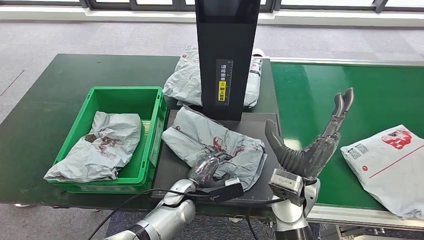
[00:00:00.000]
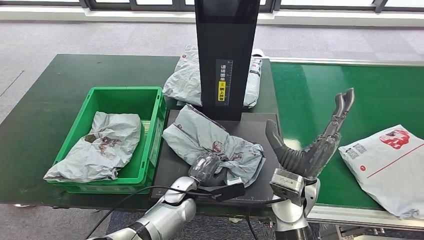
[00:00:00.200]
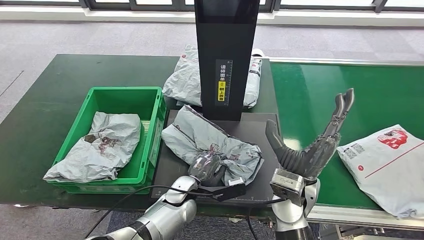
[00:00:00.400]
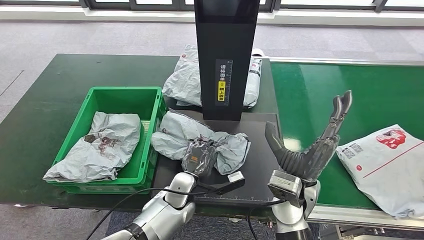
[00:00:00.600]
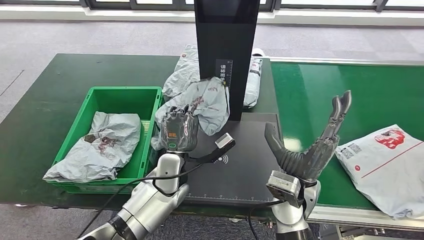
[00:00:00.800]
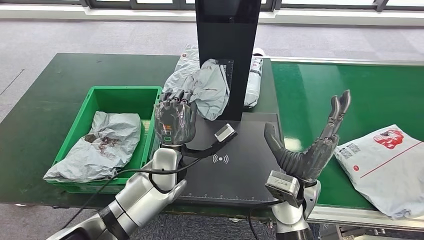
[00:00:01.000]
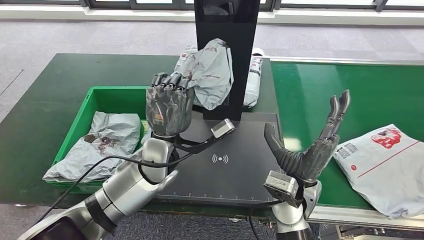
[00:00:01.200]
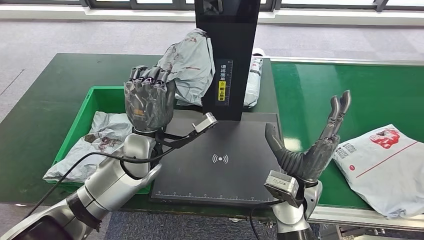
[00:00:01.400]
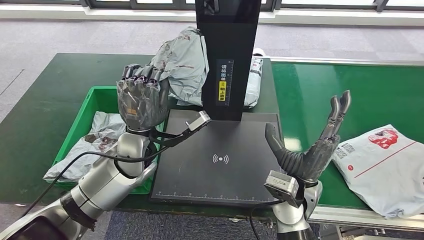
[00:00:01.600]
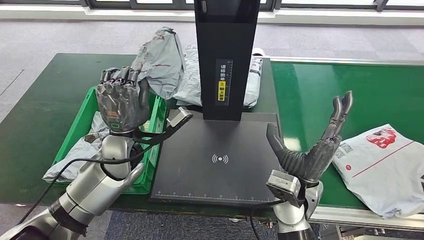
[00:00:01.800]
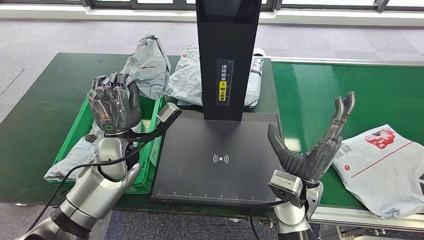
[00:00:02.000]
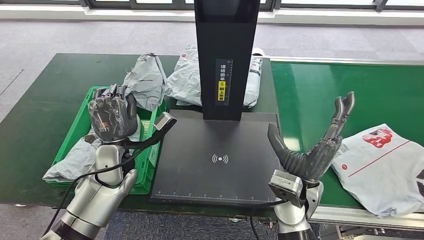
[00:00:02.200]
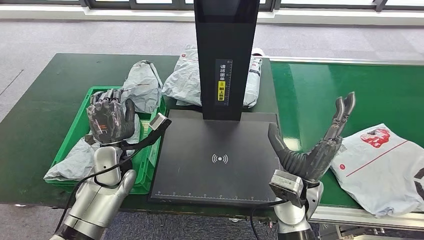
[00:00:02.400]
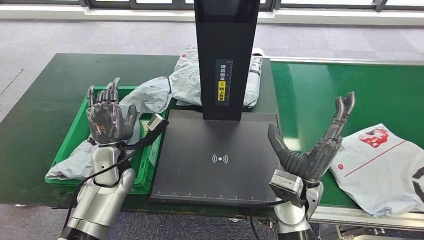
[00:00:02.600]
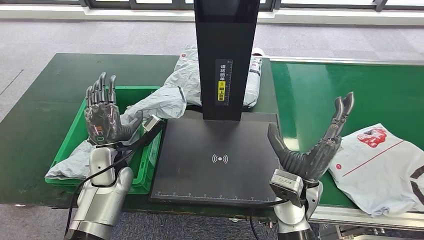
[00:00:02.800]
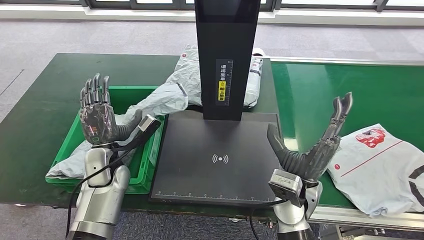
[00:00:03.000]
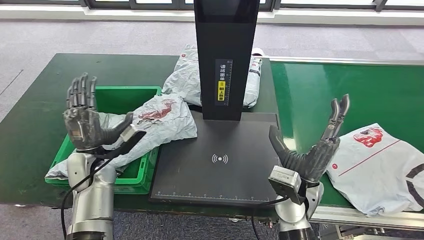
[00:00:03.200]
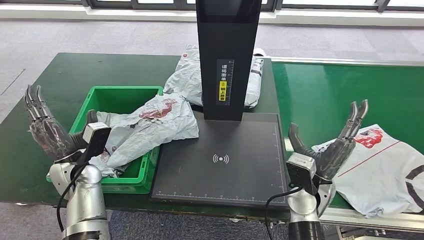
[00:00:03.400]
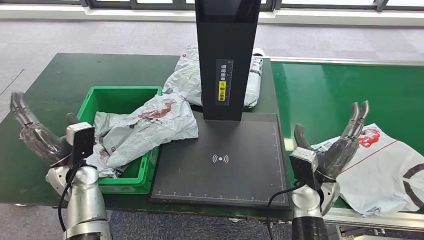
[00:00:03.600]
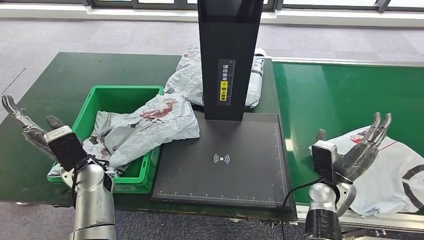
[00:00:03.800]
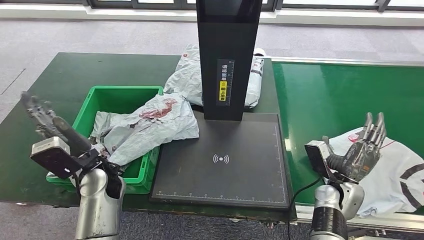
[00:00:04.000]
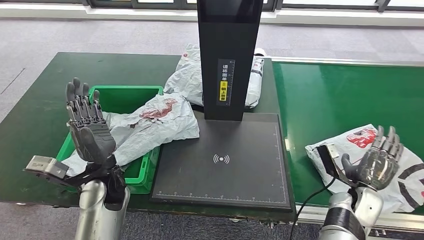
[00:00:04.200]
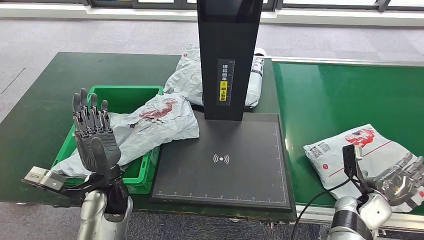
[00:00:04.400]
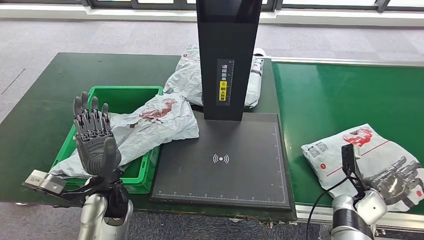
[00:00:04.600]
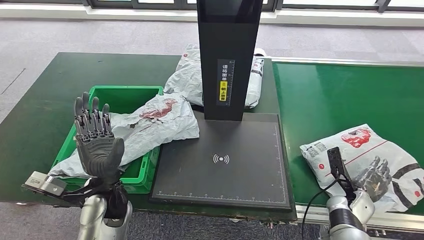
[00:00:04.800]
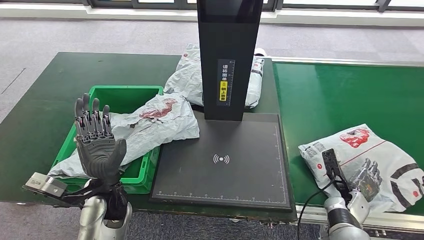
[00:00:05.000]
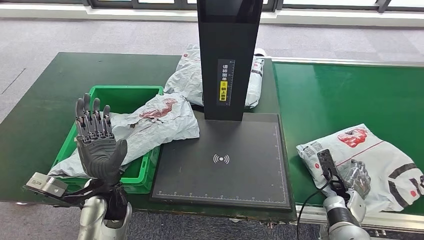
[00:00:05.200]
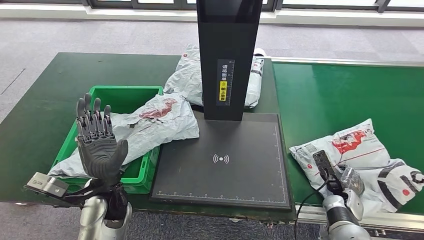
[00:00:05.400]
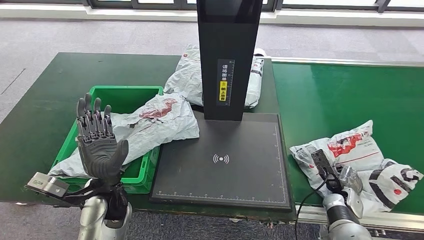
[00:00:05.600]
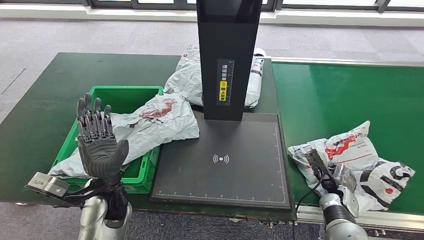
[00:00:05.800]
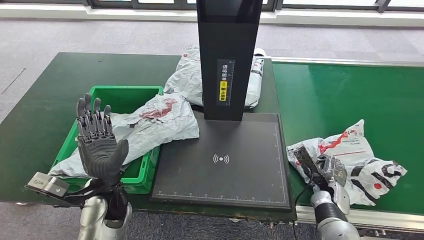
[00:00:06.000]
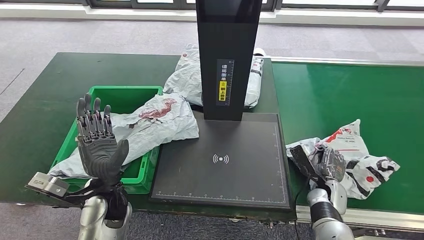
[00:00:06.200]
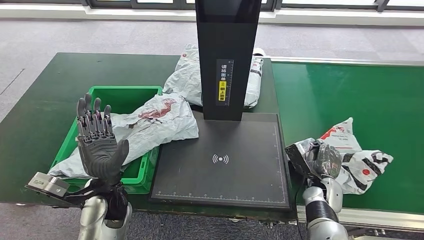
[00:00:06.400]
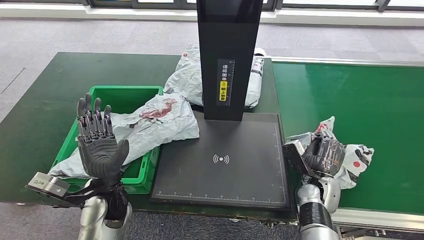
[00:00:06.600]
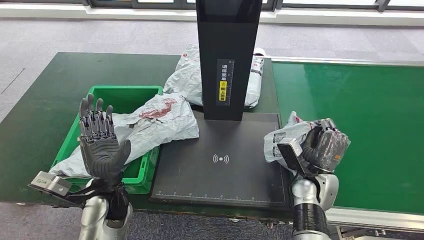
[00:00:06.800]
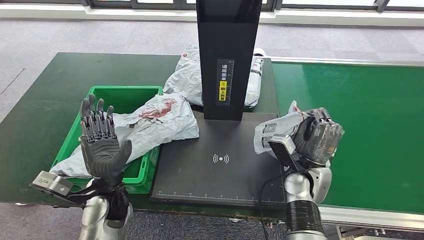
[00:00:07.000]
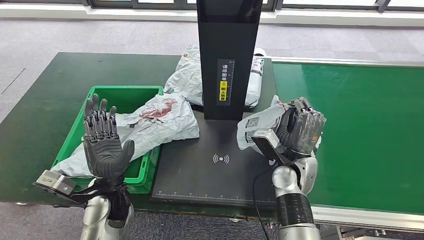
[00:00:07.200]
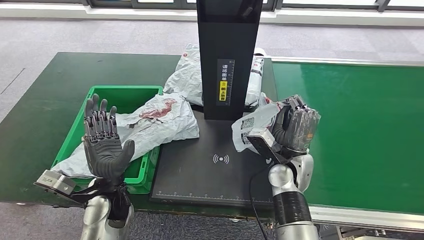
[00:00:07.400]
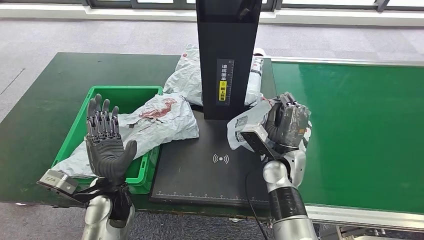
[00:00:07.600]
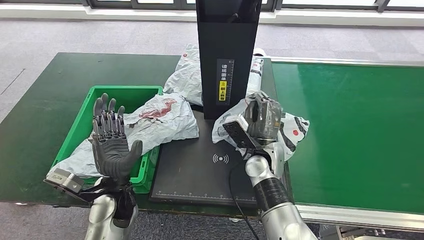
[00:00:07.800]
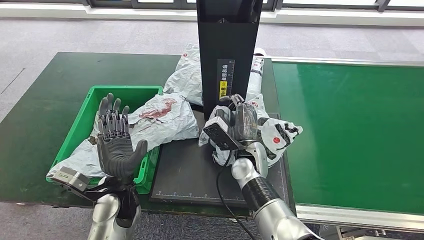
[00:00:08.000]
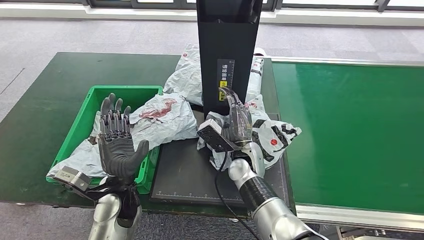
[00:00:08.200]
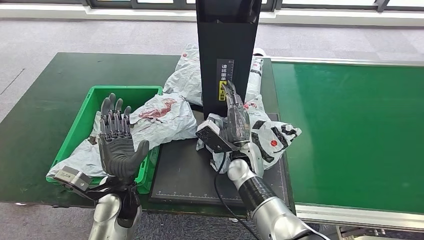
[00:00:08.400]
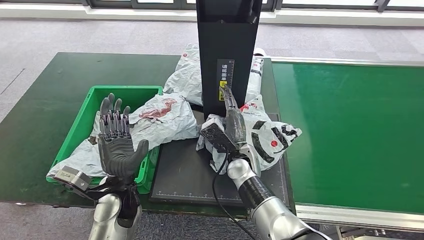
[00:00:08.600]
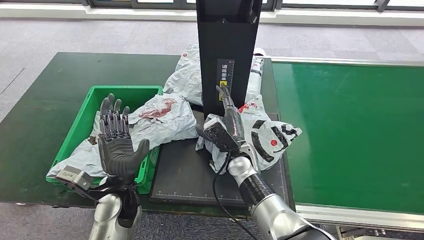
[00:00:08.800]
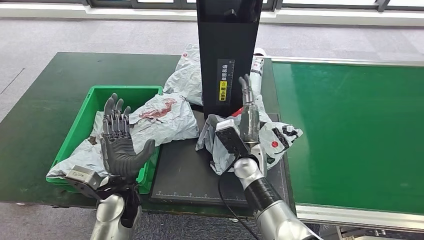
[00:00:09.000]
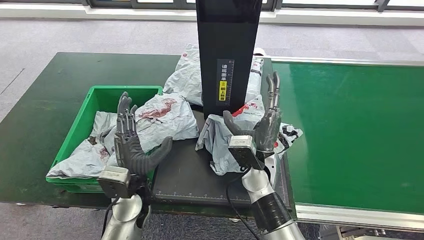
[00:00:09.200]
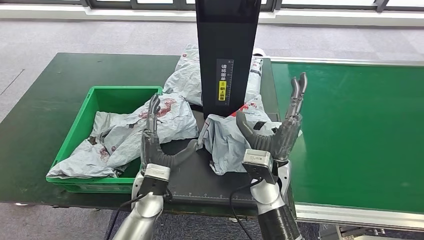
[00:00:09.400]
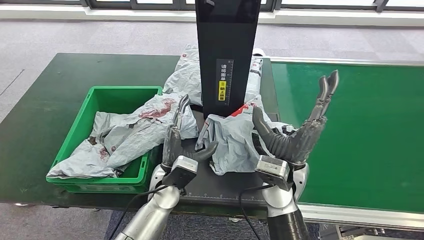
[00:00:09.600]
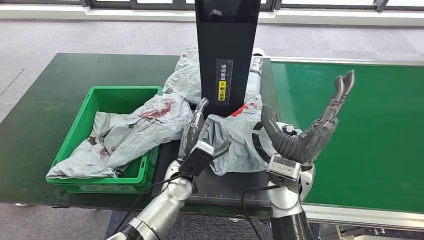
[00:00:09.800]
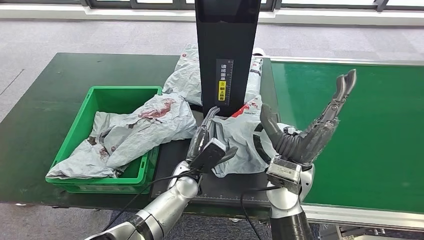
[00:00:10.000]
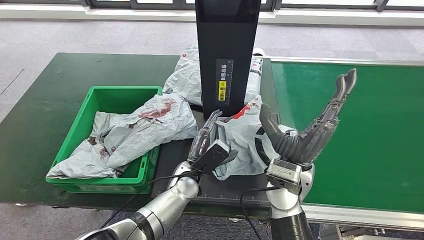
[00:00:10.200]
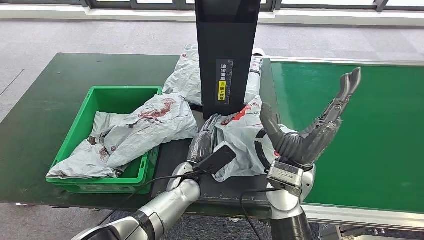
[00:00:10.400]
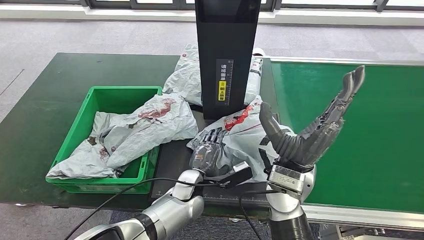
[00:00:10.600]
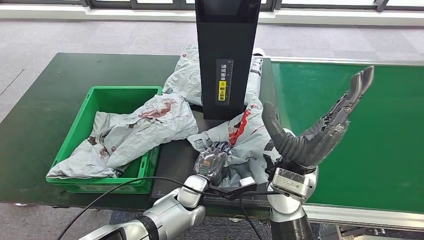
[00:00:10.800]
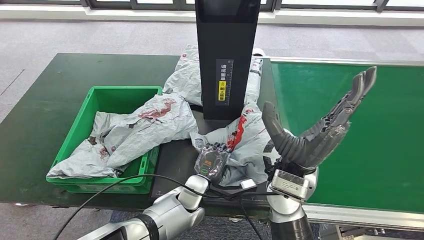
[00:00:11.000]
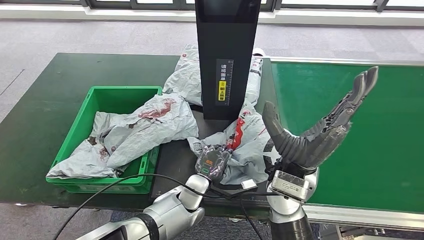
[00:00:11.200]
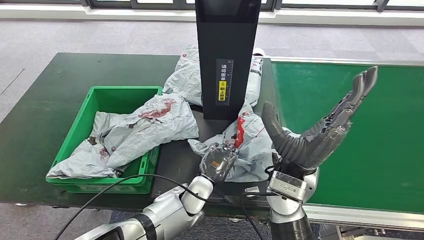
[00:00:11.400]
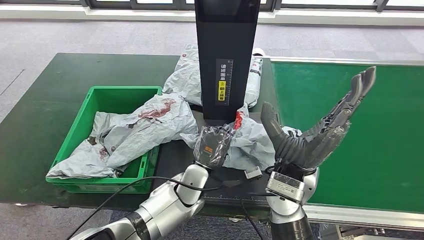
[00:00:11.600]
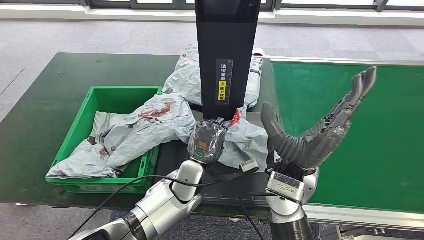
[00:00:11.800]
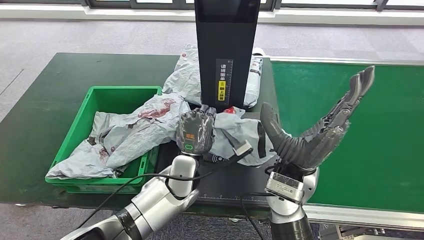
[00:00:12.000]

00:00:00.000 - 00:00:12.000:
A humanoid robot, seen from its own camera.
Step, 00:00:00.000 - 00:00:01.600: Pick up the parcel from the inbound machine.
Step, 00:00:02.000 - 00:00:03.800: Place the parcel into the delivery box.
Step, 00:00:04.200 - 00:00:07.000: Pick up the parcel from the conveyor belt.
Step, 00:00:07.400 - 00:00:08.800: Place the parcel onto the inbound machine.
00:00:04.400 - 00:00:06.000: The right hand moves to the left, some 5 cm.
00:00:07.600 - 00:00:09.000: The right hand shifts roughly 10 cm to the left.
00:00:10.400 - 00:00:12.000: The left hand is displaced upward by some 5 cm.

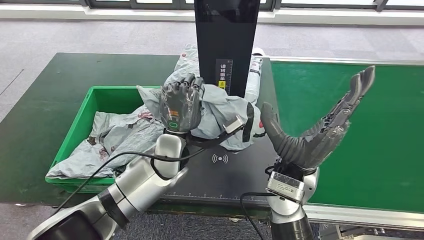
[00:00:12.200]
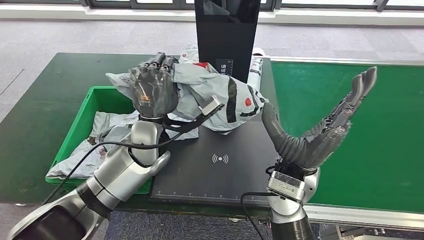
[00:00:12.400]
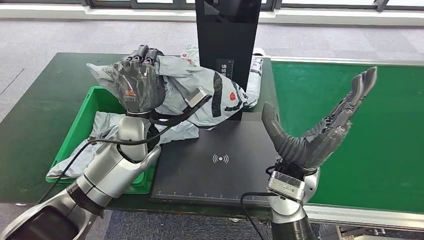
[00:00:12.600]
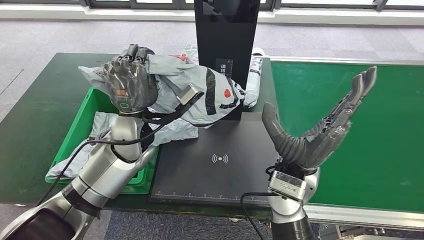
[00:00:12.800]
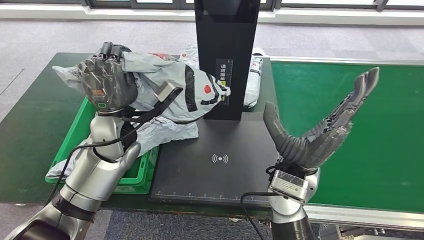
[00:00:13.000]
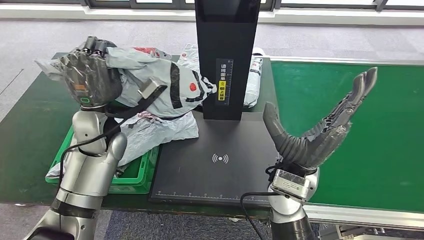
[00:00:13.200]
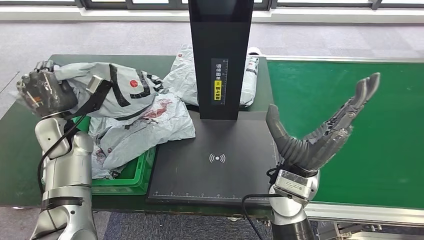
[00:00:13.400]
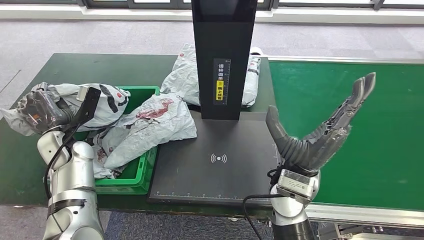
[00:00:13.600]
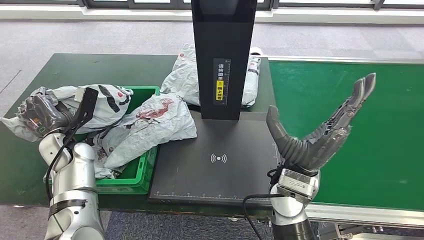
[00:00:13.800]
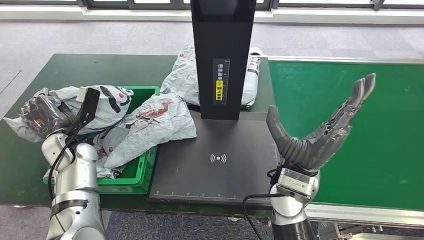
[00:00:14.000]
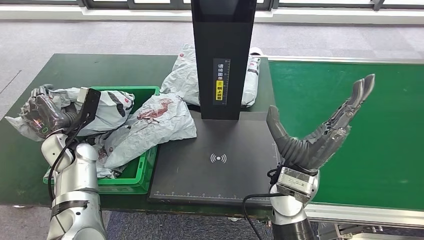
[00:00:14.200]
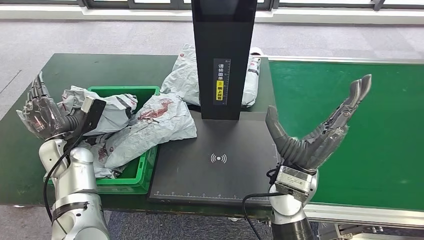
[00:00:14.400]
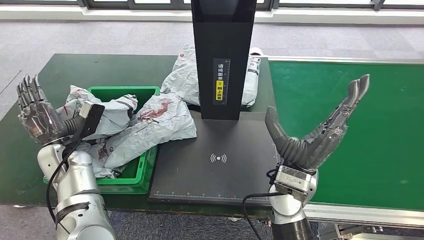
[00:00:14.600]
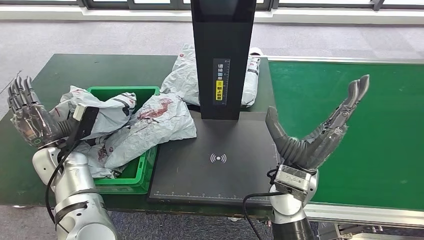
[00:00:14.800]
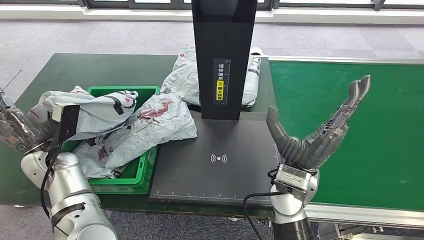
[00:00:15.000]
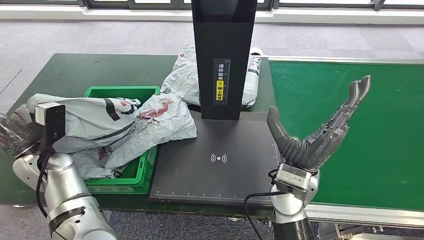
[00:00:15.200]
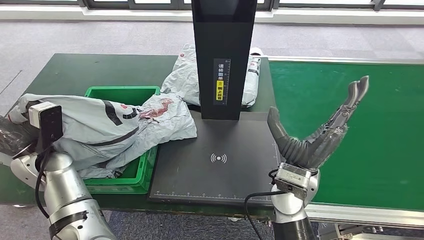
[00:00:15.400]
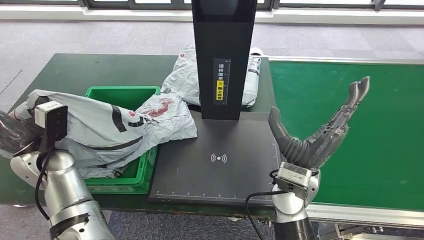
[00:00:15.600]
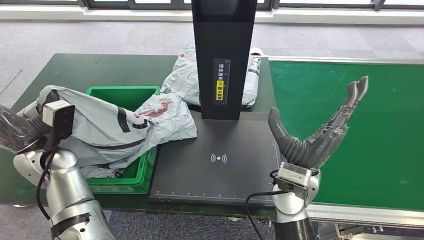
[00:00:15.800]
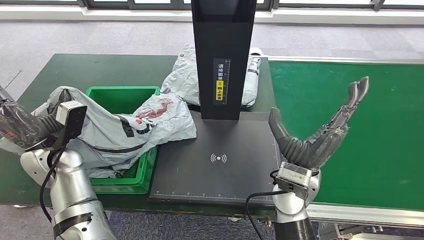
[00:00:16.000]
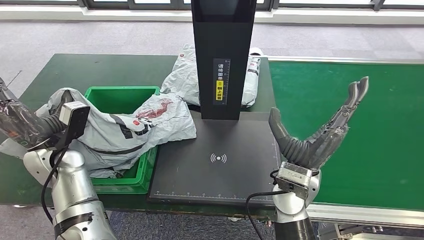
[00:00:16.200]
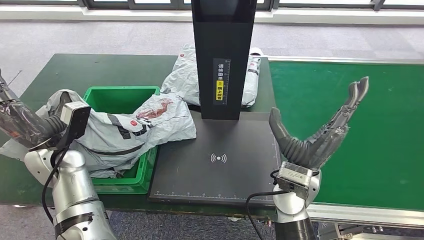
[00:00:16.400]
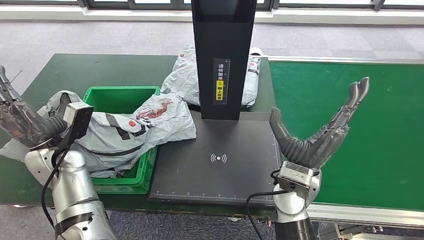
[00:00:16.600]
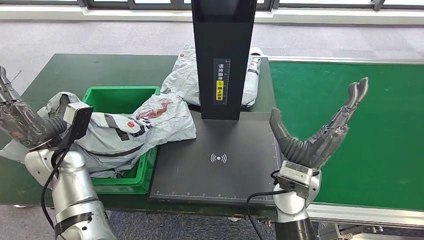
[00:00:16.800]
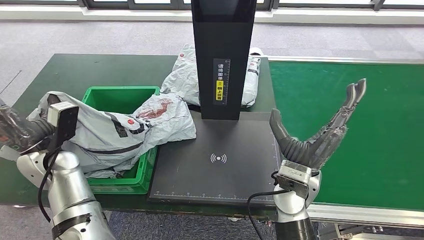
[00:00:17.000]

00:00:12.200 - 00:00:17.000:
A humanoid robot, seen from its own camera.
00:00:13.800 - 00:00:15.400: The left hand changes place by some 5 cm.
00:00:15.400 - 00:00:17.000: The hands stay close to where they were, moving slightly.
